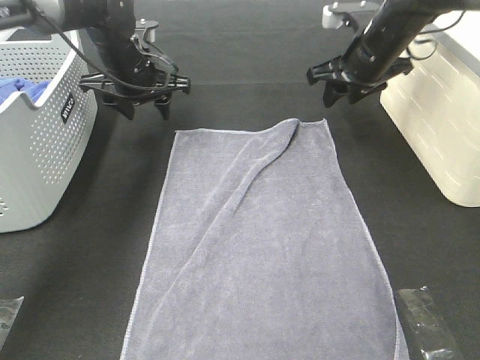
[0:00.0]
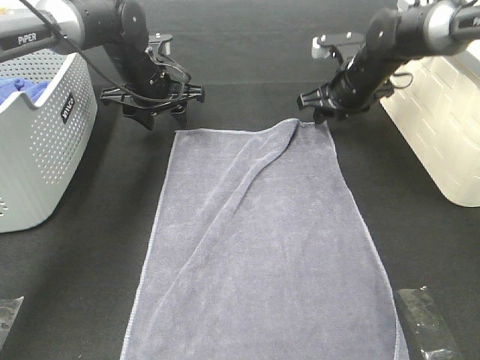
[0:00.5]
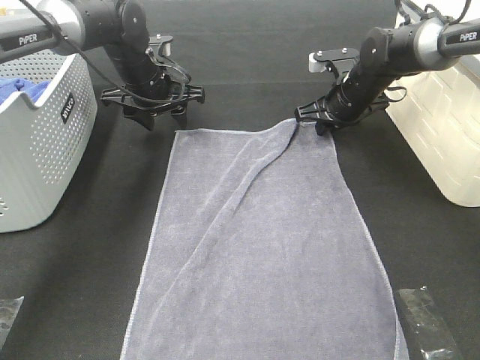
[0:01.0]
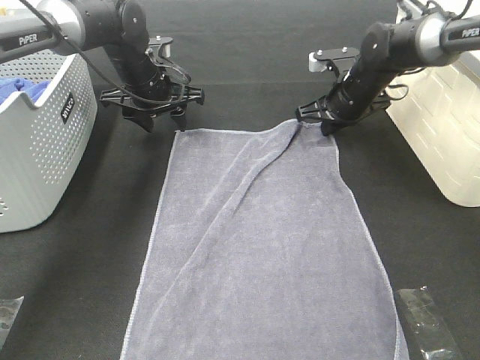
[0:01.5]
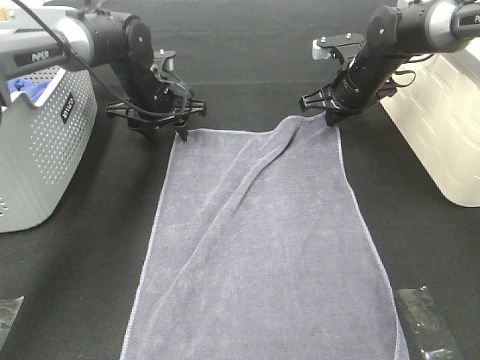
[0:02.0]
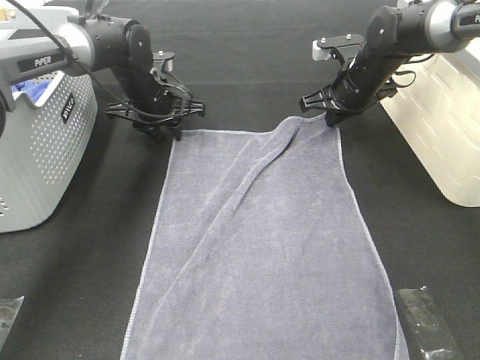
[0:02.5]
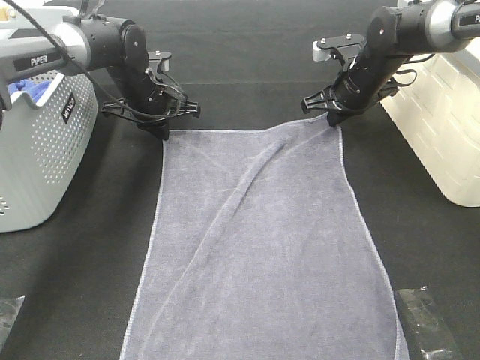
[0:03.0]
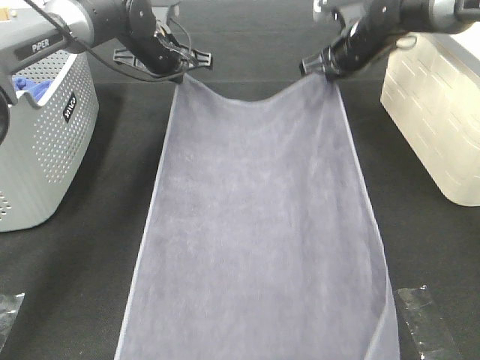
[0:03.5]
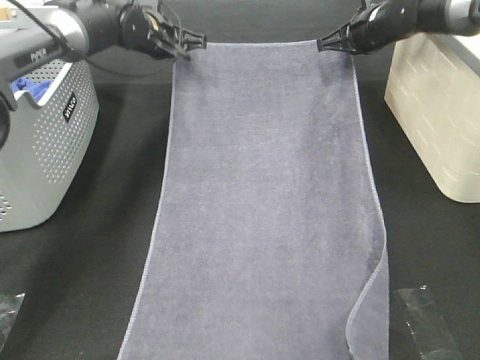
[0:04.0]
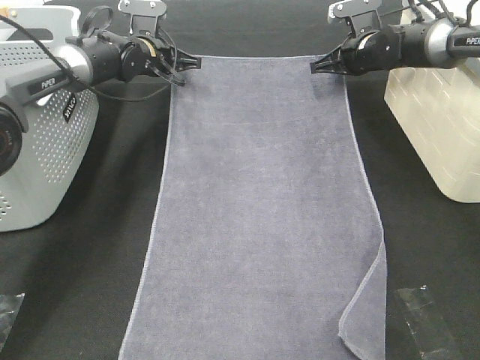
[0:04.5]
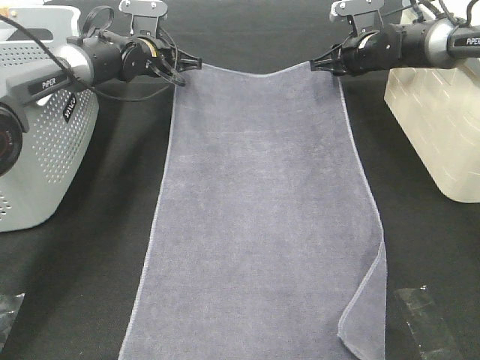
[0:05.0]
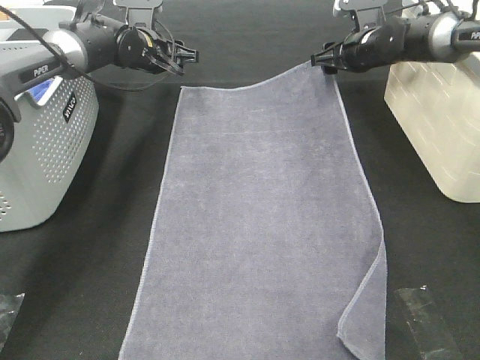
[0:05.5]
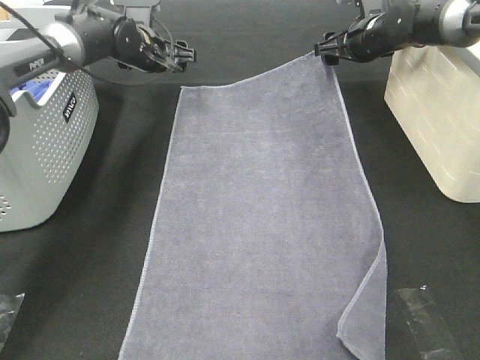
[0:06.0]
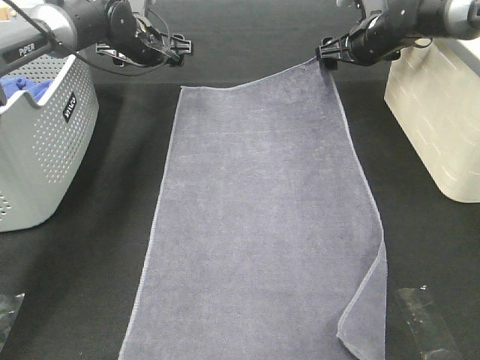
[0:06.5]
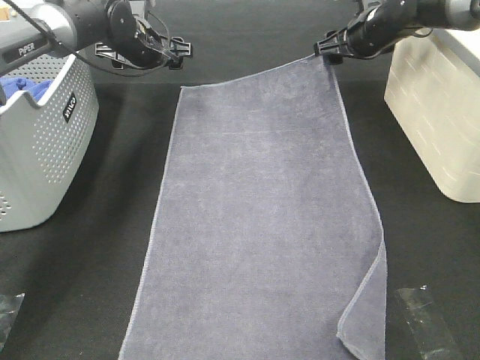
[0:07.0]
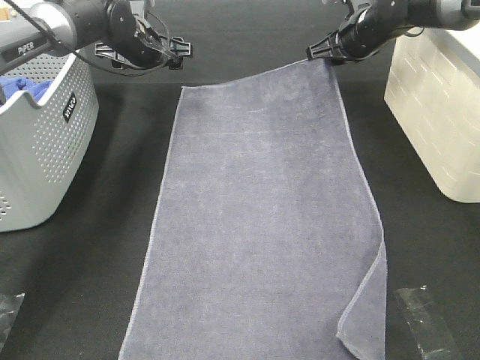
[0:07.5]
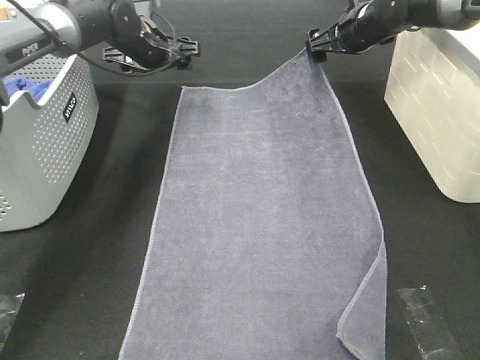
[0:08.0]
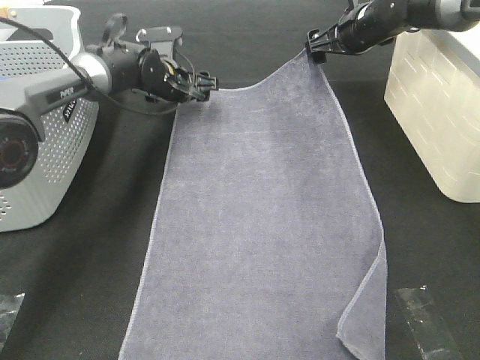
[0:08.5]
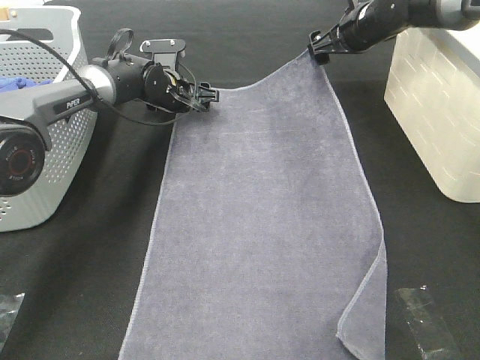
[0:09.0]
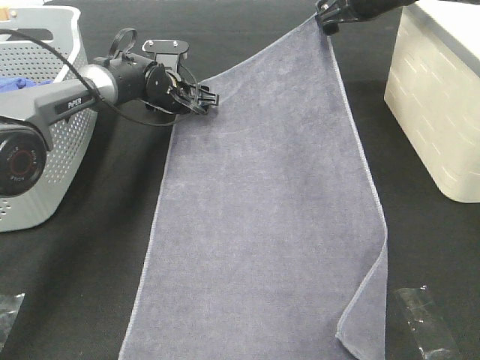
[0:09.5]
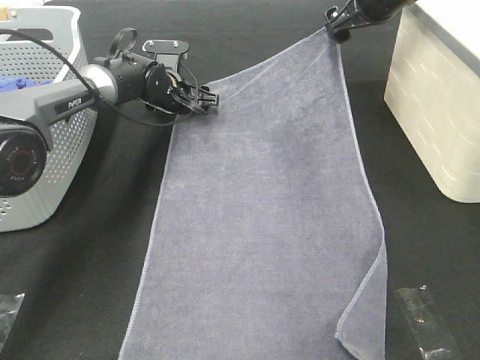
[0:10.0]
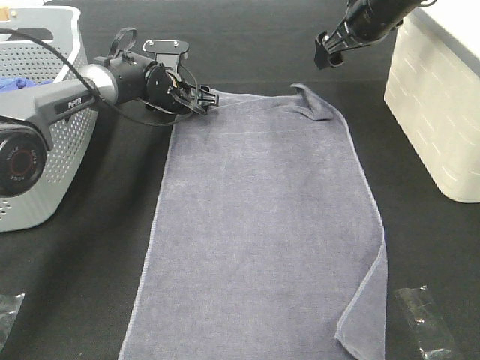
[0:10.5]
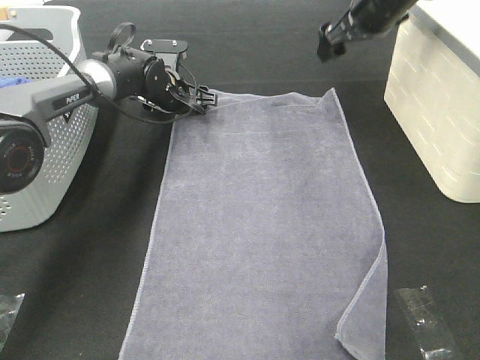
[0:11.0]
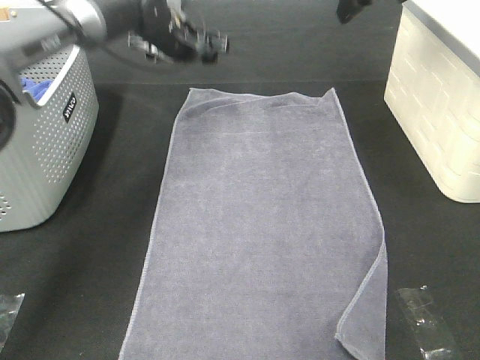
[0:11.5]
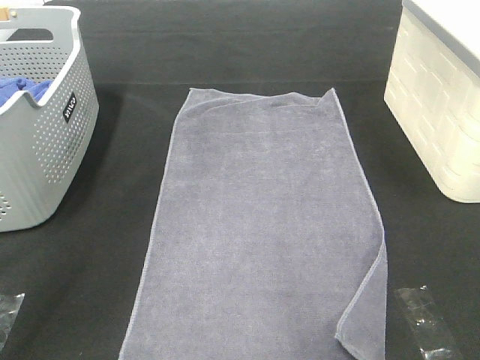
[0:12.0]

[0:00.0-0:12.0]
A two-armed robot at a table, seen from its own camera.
Task of the whole recording: Remove the towel and place it.
Step, 0:00.0 to 0:04.0: Right hand:adjust the gray towel.
0:00.0 to 0:02.0: The left gripper moves downward, approximately 5 cm. Meanwhile the right gripper closes its fingers.
0:02.0 to 0:04.0: Both grippers travel together forward and upward, roughly 10 cm. The left gripper closes up.
0:04.0 to 0:06.0: The right gripper opens its fingers. The left gripper opens up.
0:06.0 to 0:08.0: The grippers stay close to where they were, moving slightly.
0:08.0 to 0:10.0: The left gripper moves downward, approximately 10 cm, while the right gripper is displaced upward by about 5 cm.
0:10.0 to 0:12.0: The right gripper shifts some 20 cm upward and backward, while the left gripper moves upward, roughly 30 cm.

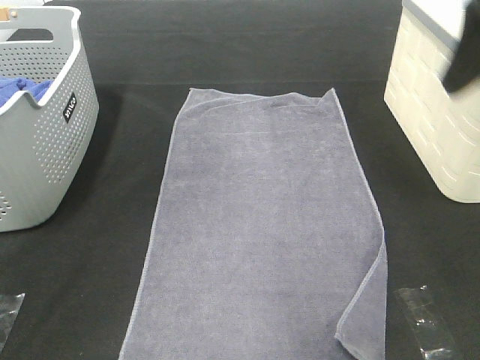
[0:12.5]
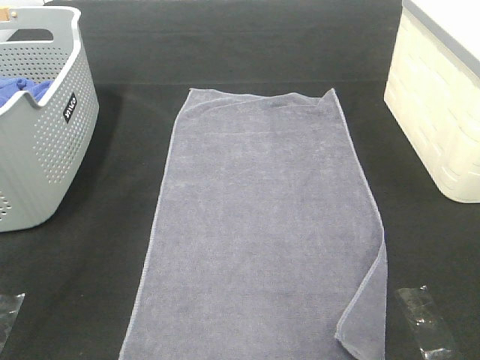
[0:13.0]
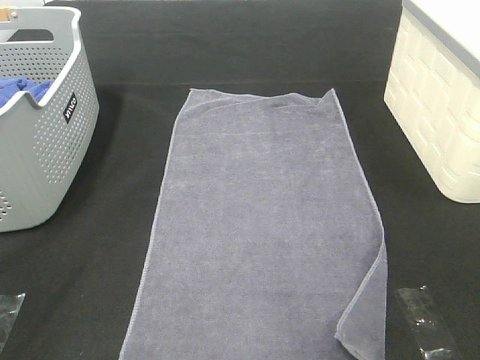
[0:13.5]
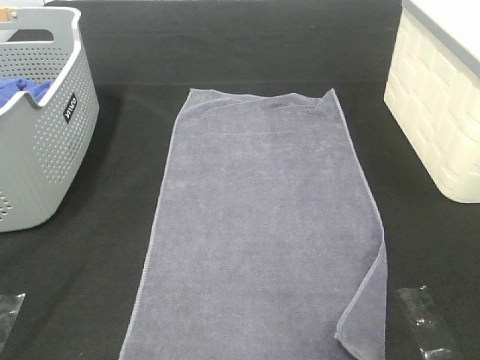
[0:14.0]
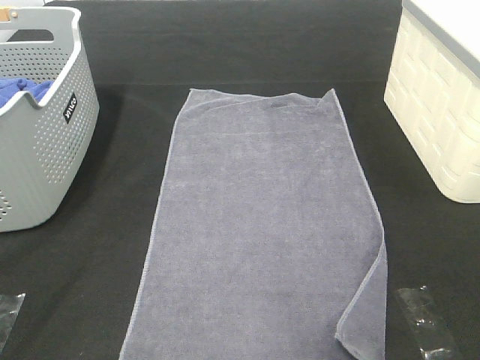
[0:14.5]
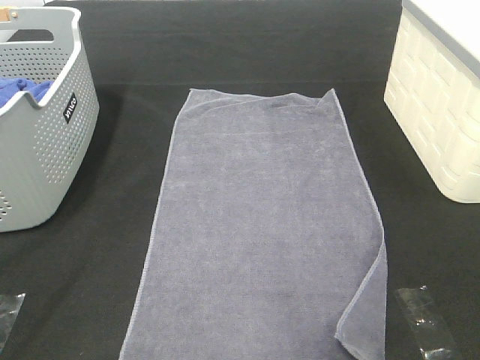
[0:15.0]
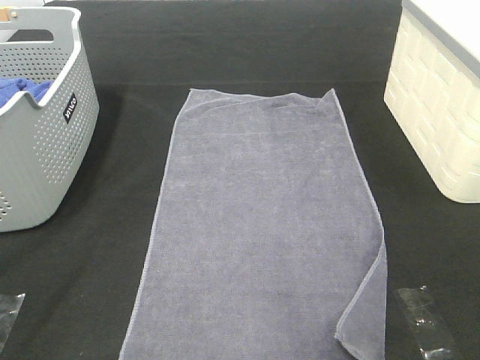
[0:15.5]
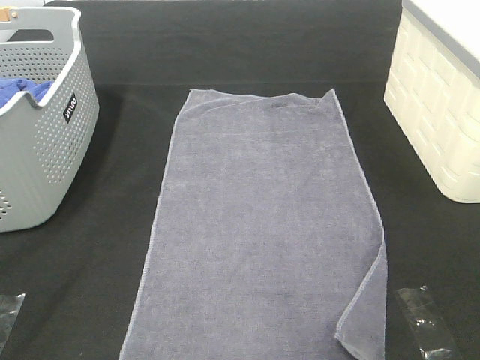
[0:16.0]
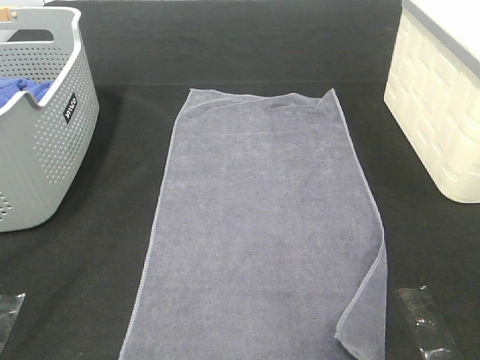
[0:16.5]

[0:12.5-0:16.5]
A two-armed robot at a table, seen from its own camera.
Task of the whole recording: Remove the towel and place it.
0:12.5 to 0:14.5: The left gripper heads backward, downward and to the left, covering approximately 40 cm, while the right gripper is displaced backward by roughly 20 cm.
